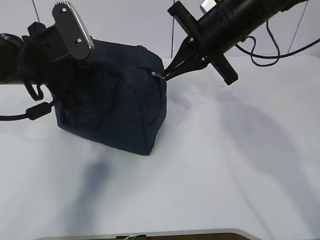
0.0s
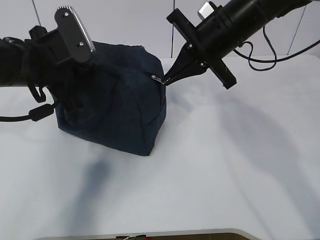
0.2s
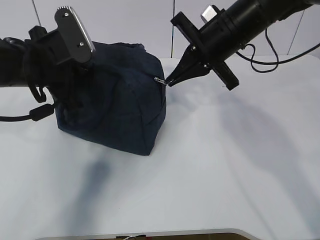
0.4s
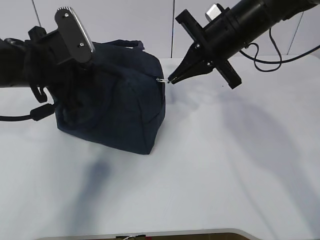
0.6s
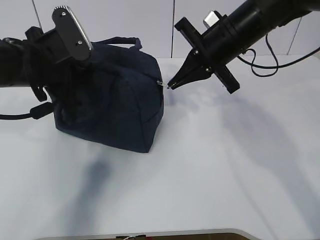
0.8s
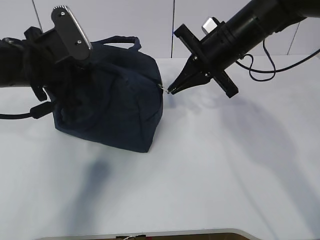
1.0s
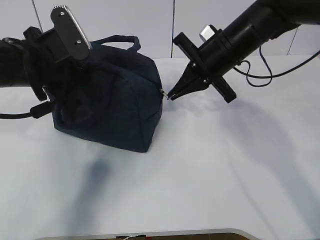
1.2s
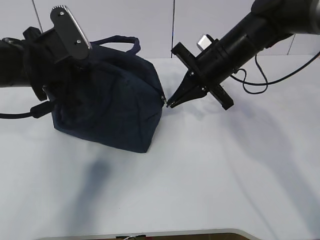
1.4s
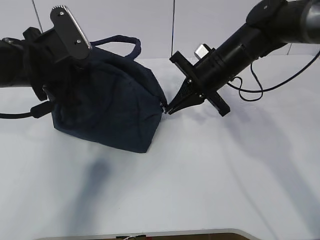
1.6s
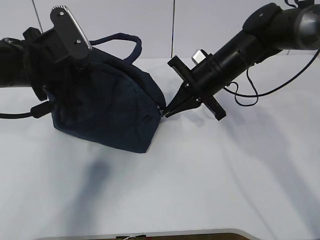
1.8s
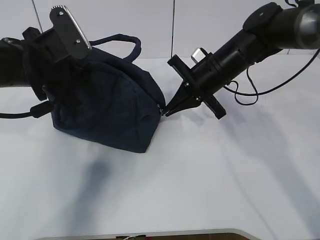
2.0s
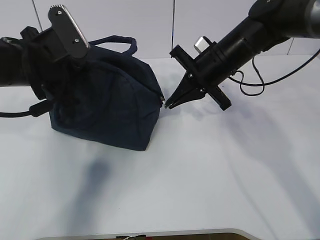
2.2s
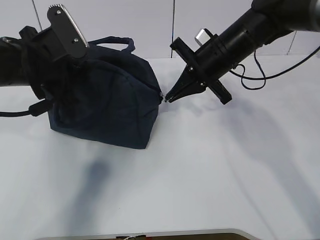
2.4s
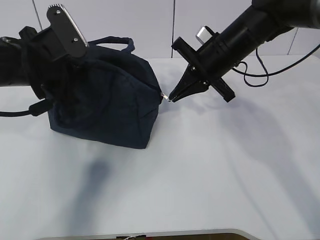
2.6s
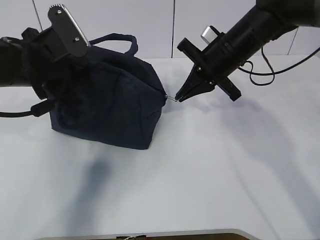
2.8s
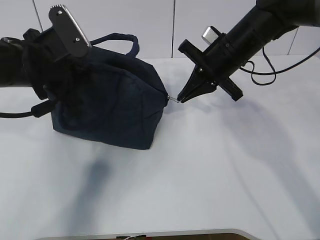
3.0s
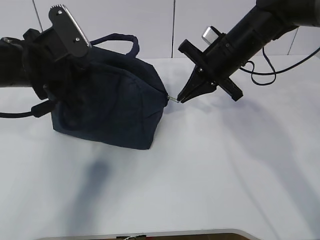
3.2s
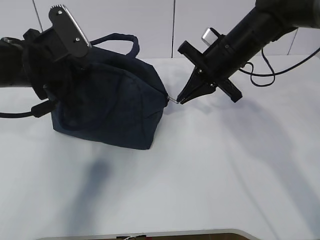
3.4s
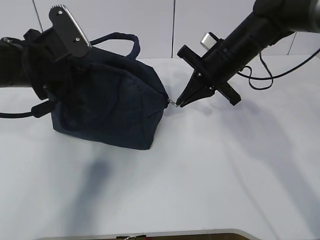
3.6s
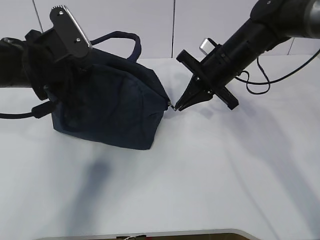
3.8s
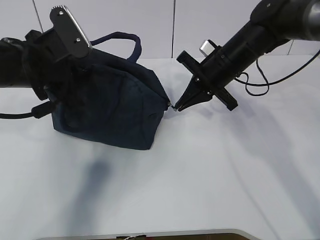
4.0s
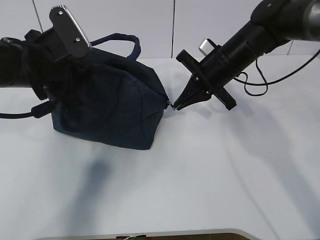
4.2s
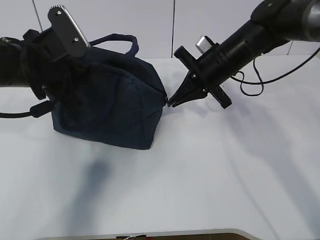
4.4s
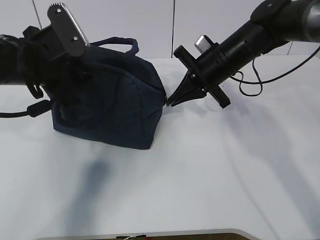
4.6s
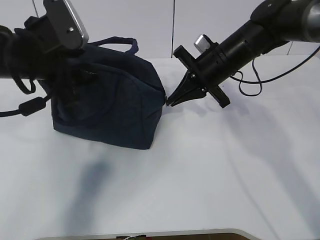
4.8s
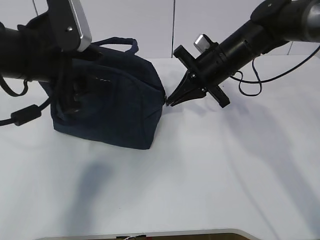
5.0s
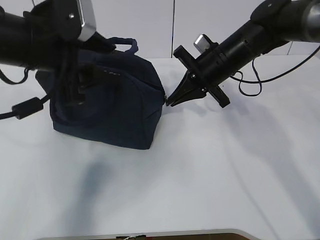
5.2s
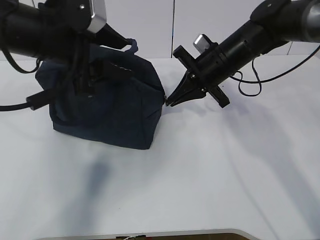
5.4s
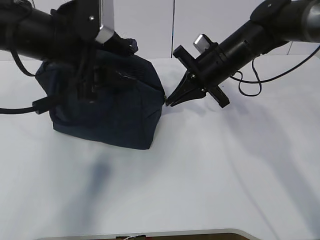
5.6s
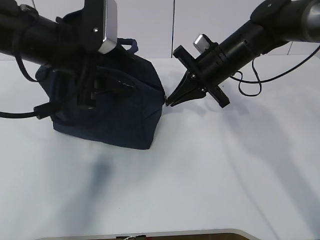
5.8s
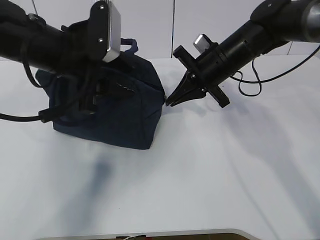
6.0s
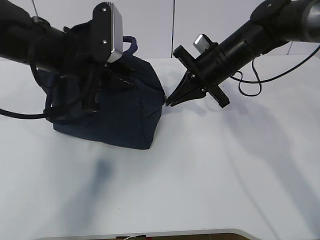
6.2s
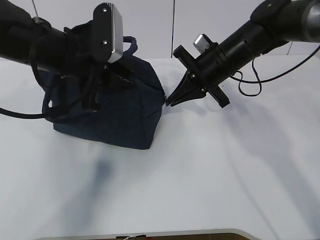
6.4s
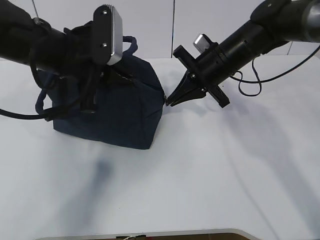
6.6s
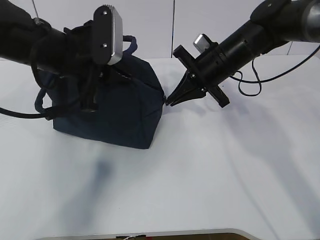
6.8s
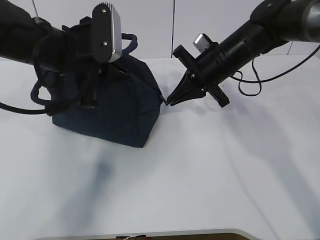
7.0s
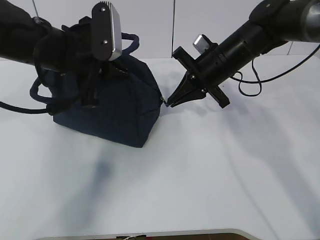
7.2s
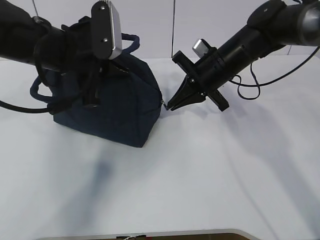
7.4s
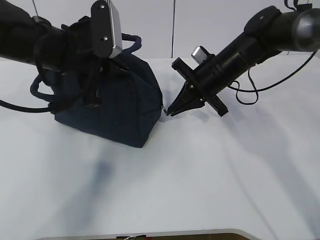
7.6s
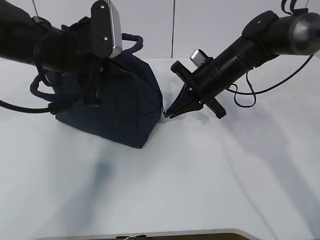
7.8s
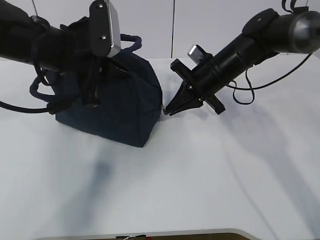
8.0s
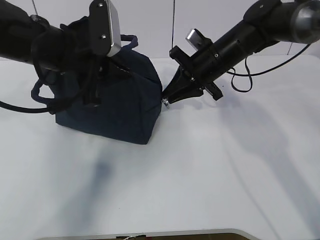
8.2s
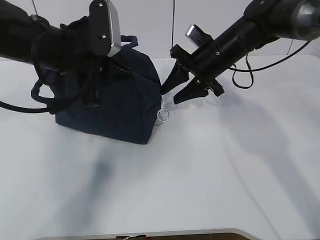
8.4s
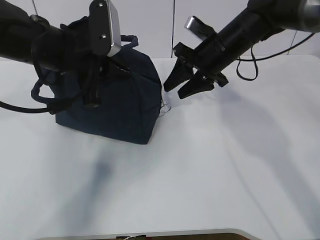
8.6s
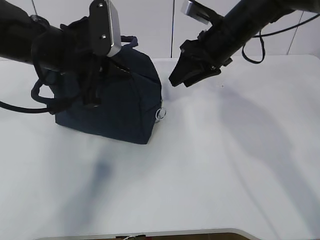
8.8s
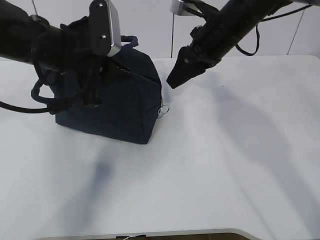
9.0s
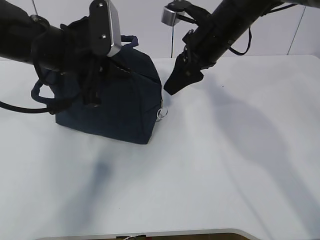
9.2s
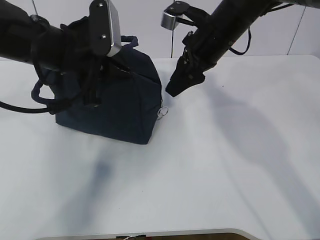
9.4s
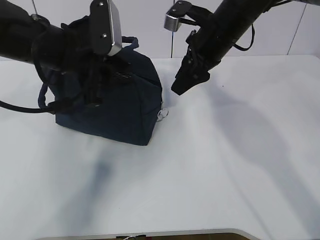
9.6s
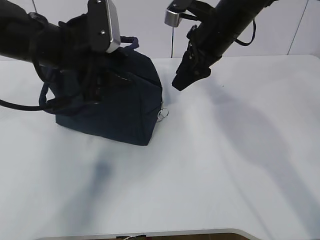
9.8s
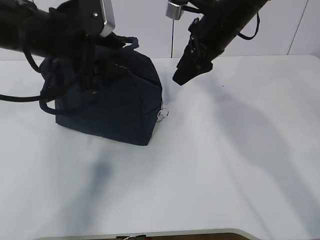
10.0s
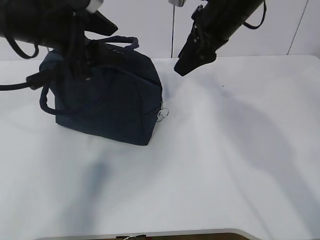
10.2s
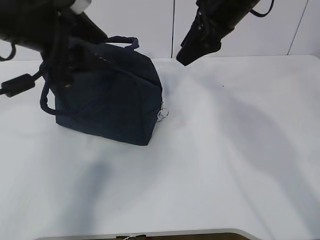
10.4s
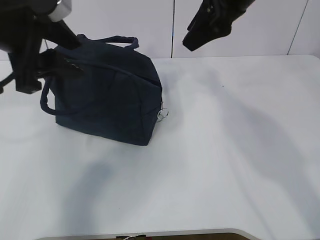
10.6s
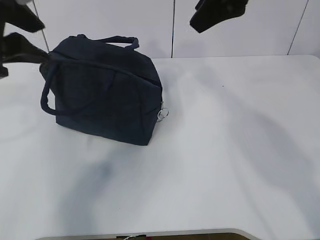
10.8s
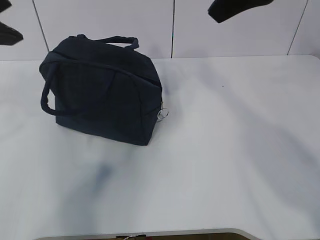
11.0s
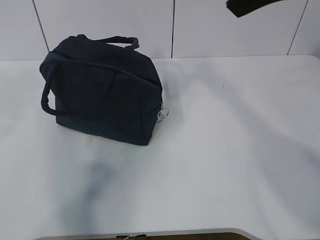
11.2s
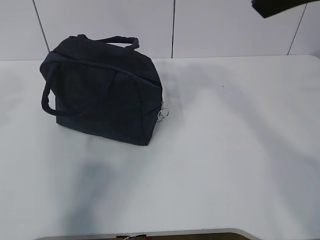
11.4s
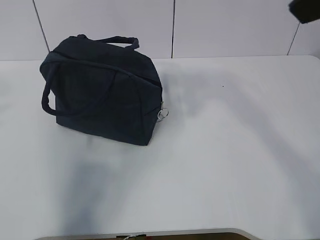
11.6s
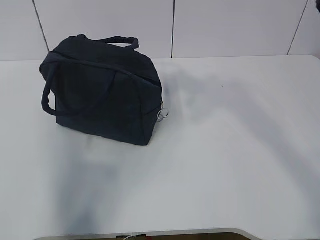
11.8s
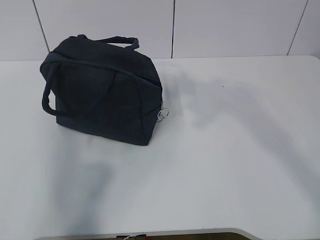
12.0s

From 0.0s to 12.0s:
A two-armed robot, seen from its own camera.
From 0.0s to 1.6s: The right gripper heads downward, covering approximately 10 cm.
From 1.6s to 4.4s: The grippers stay close to where they were, moving slightly.
From 4.4s to 6.0s: The left gripper changes place by approximately 5 cm, and opens.
From 6.0s to 7.6s: The left gripper closes.
From 7.6s to 9.0s: The right gripper moves upward, some 10 cm, and opens its fingers.
From 9.0s to 10.4s: Both grippers travel together upward, about 5 cm. The left gripper opens.
From 10.4s to 12.0s: The right gripper moves backward and upward, approximately 25 cm; the left gripper travels backward, to the left and upward by approximately 25 cm.

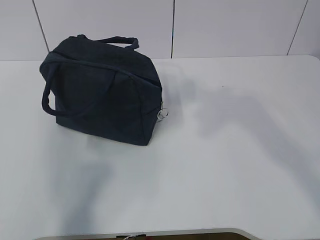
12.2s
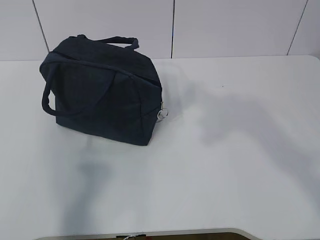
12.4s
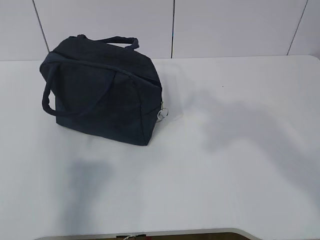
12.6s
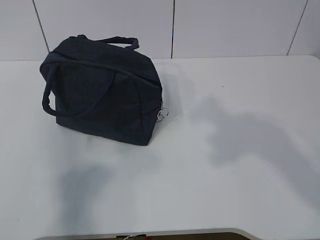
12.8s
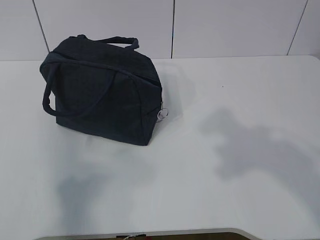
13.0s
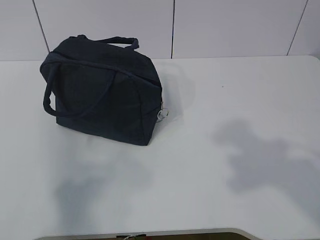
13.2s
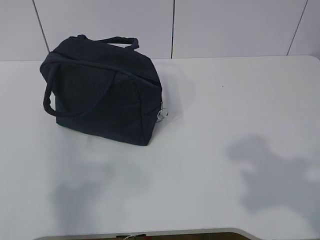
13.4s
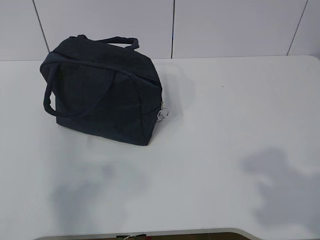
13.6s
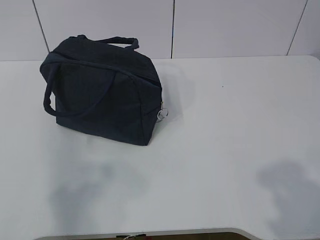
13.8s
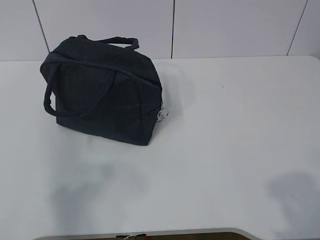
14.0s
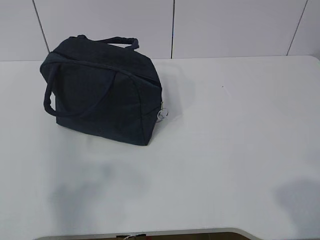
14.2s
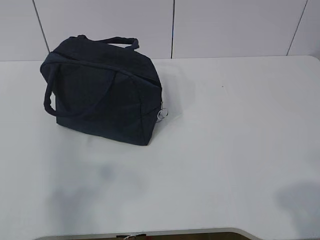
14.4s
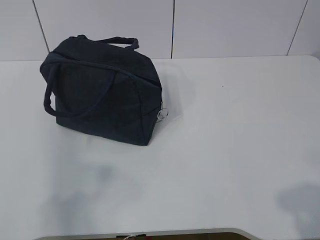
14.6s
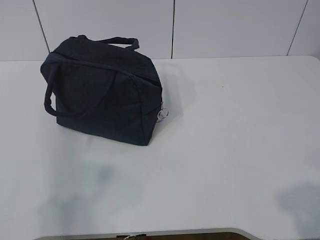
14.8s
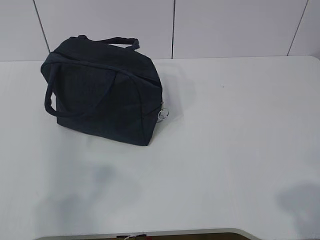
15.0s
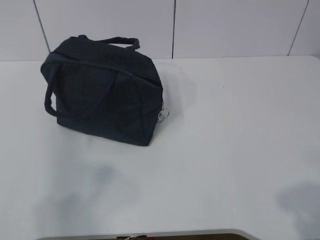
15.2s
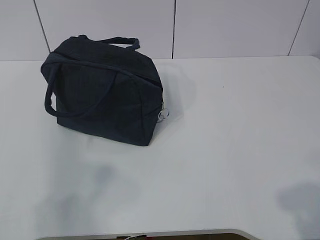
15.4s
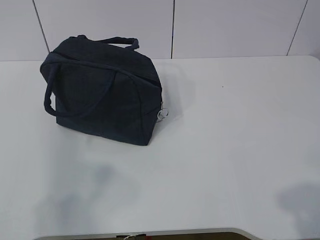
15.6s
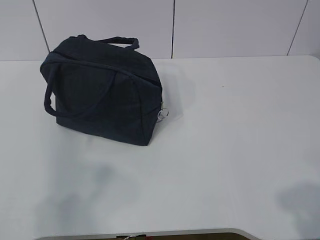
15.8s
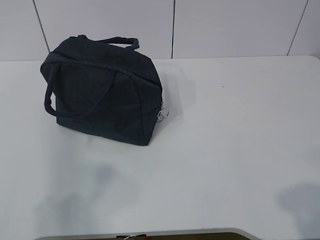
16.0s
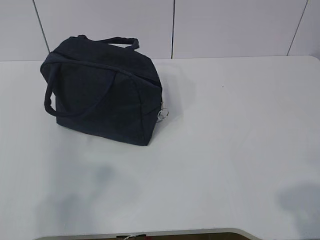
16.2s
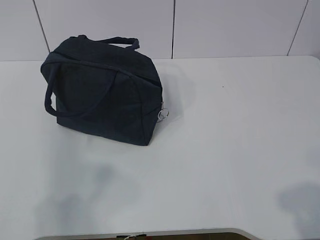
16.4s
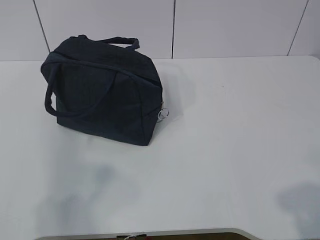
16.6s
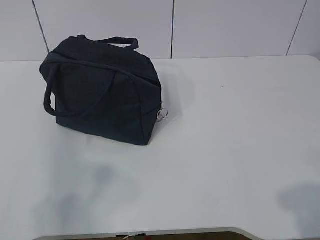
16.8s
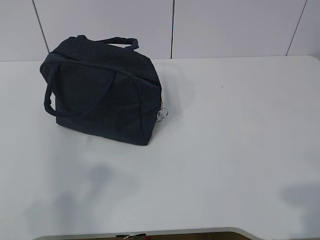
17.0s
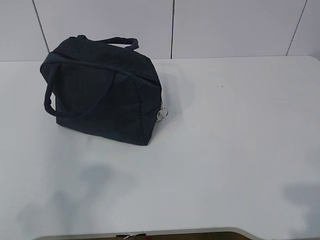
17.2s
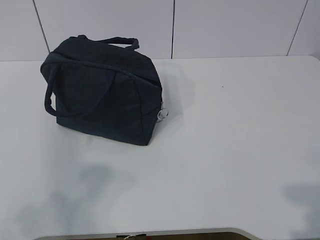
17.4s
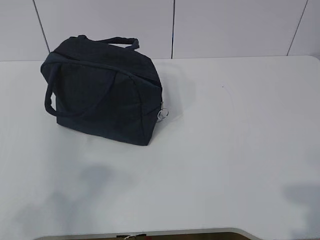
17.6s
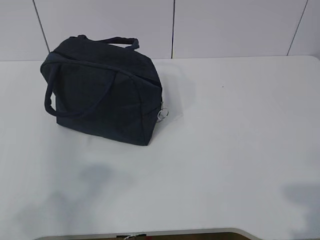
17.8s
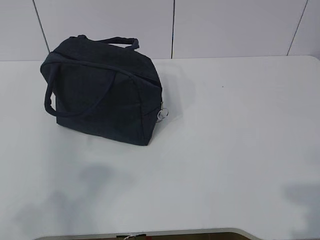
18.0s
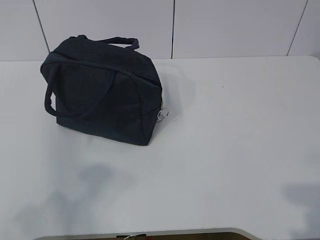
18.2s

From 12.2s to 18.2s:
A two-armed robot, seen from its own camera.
From 12.2s to 13.8s: The right gripper heads downward, backward and to the right, covering roughly 20 cm.
From 13.8s to 15.2s: There are only small adjustments of the grippers.
From 15.2s to 16.6s: Both grippers stay about where they are.

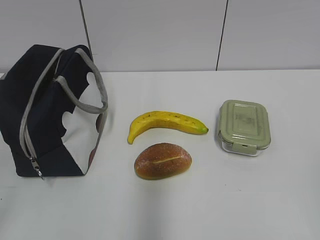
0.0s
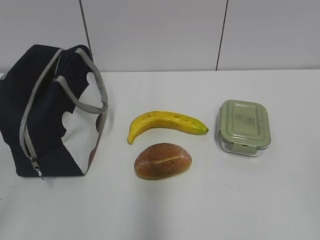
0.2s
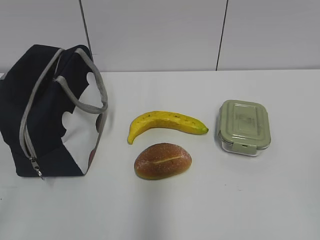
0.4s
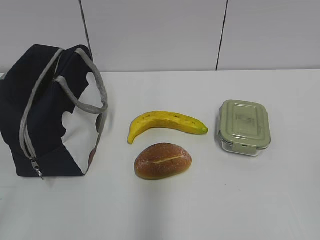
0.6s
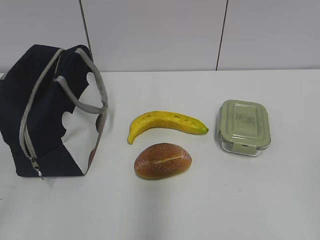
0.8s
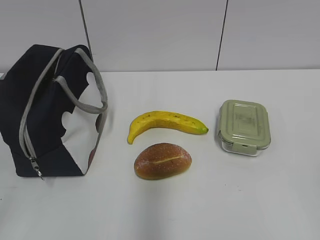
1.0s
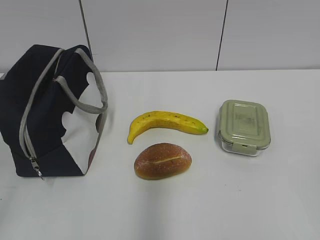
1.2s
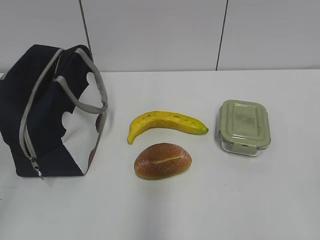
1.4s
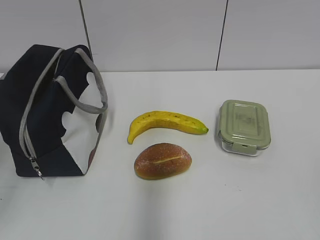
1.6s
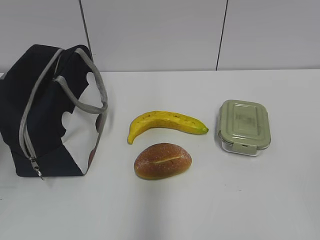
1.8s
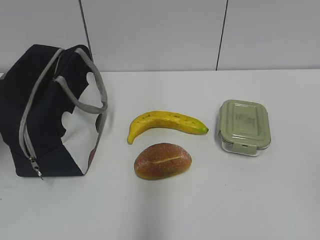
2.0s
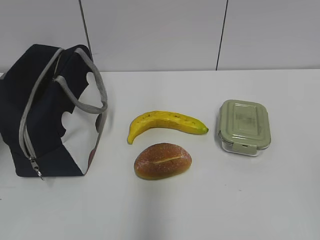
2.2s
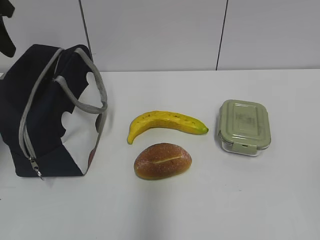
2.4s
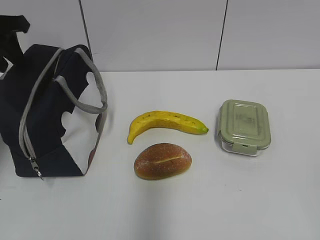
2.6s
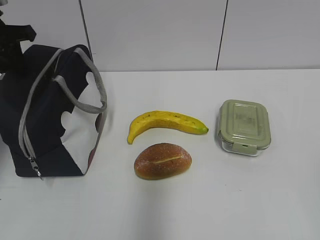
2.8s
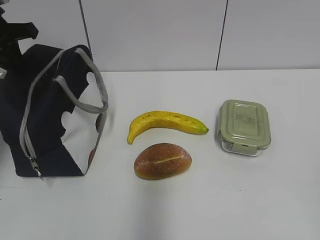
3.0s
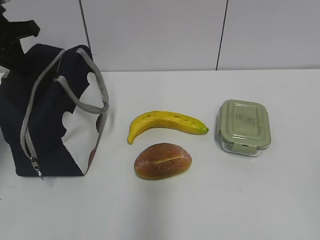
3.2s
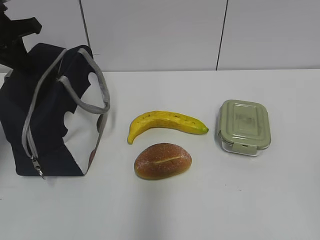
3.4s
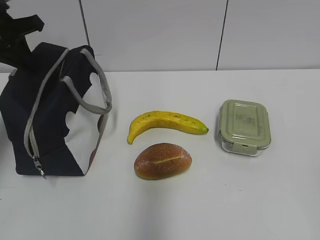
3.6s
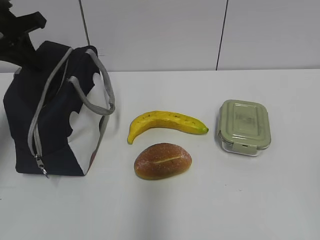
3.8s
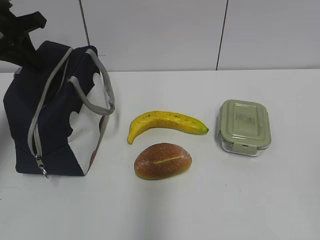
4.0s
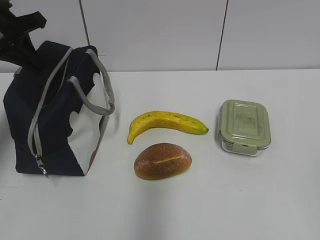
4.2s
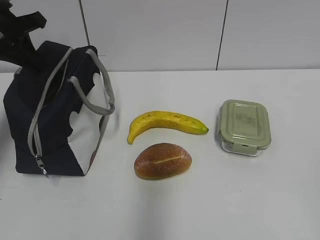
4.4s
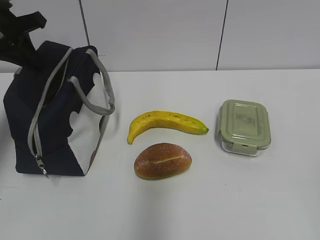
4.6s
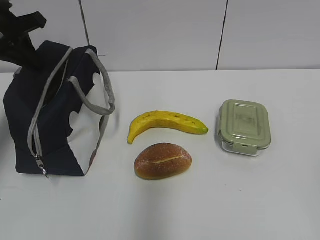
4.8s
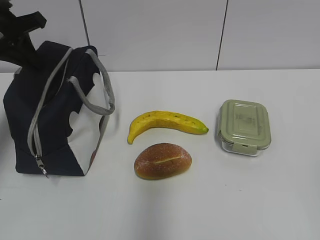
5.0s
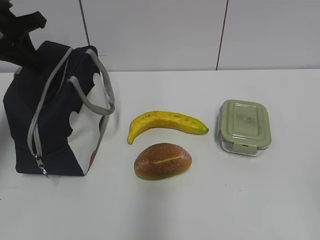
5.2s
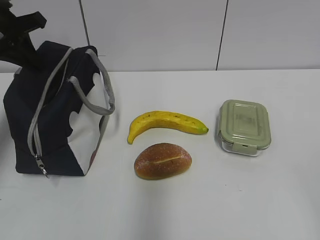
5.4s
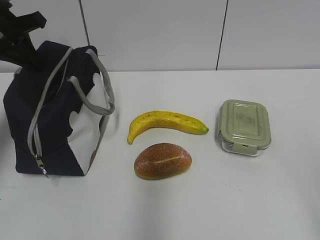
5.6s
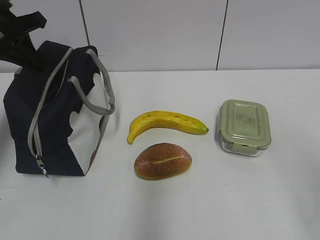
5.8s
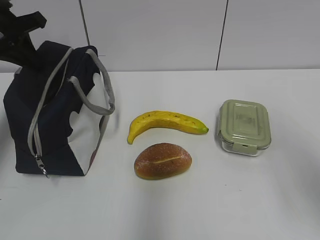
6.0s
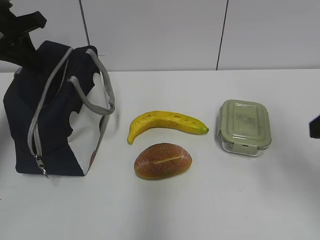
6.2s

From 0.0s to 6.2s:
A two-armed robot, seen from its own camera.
From 1.6s to 3.2s: The left gripper is displaced forward by approximately 30 cm, and closes its fingers.
From 3.2s to 4.6s: There are only small adjustments of the grippers.
From 4.6s to 6.2s: The right gripper travels forward by approximately 20 cm, and opens.
